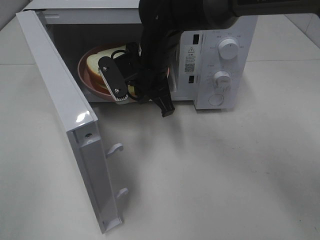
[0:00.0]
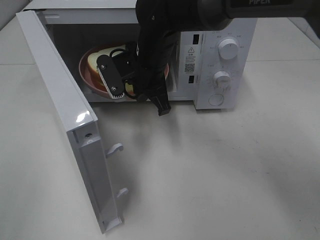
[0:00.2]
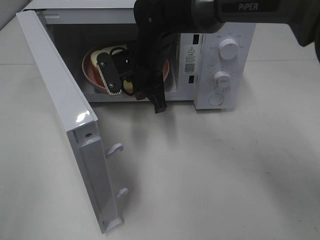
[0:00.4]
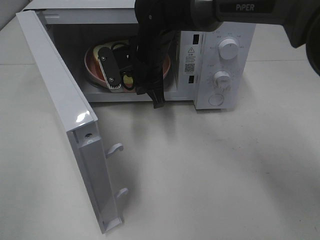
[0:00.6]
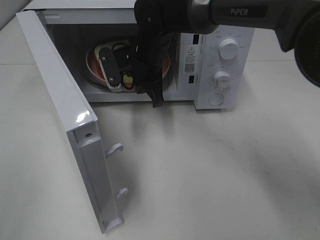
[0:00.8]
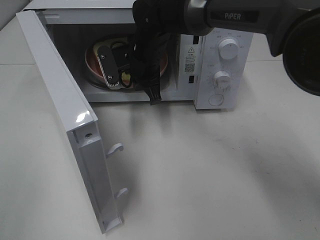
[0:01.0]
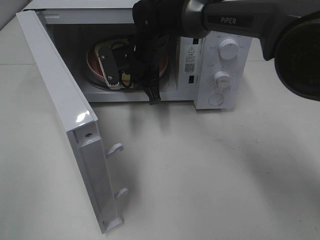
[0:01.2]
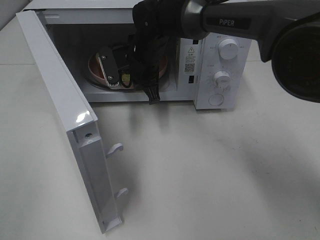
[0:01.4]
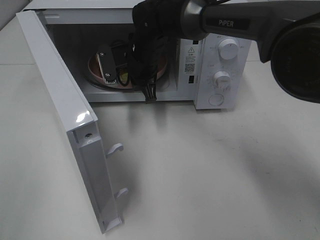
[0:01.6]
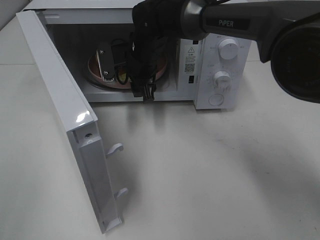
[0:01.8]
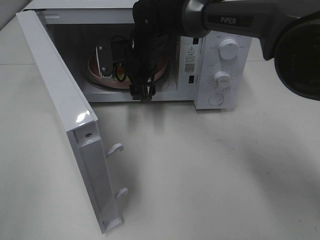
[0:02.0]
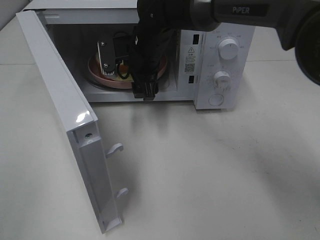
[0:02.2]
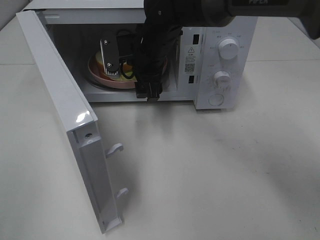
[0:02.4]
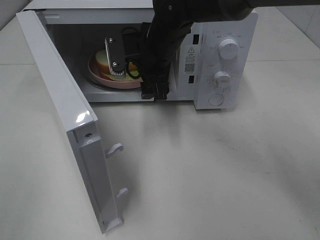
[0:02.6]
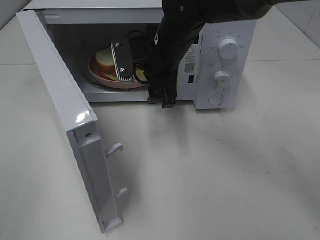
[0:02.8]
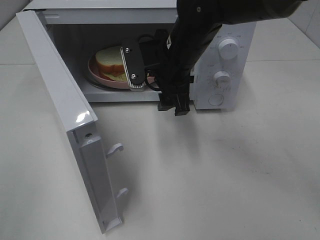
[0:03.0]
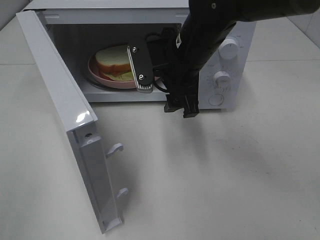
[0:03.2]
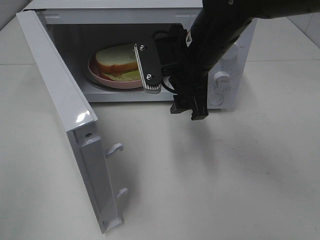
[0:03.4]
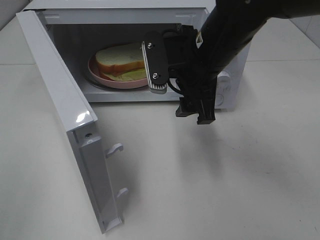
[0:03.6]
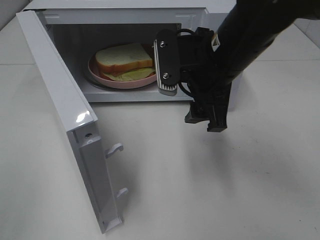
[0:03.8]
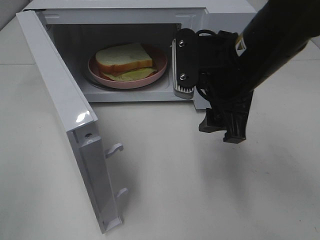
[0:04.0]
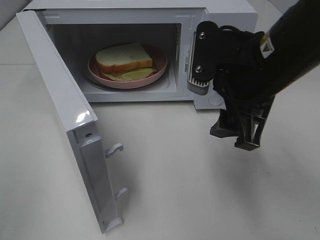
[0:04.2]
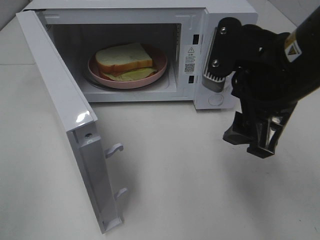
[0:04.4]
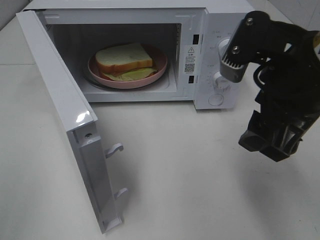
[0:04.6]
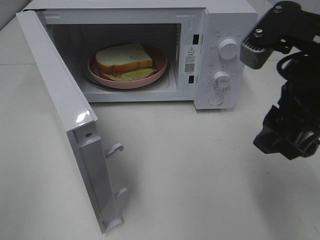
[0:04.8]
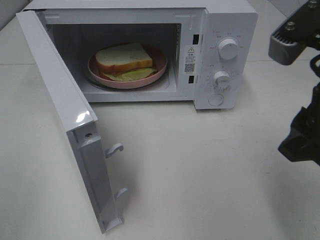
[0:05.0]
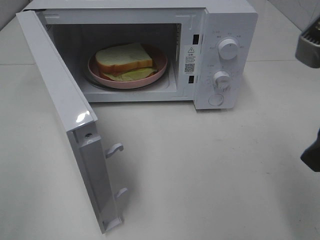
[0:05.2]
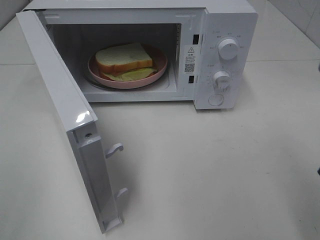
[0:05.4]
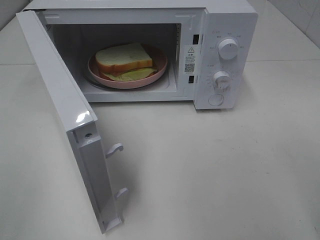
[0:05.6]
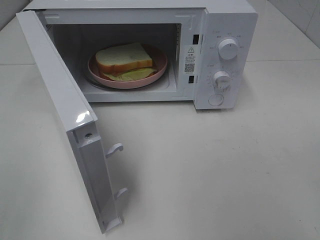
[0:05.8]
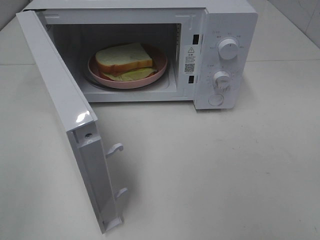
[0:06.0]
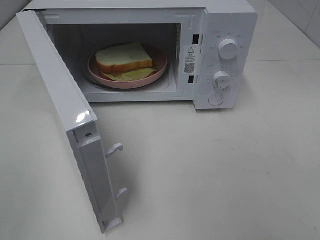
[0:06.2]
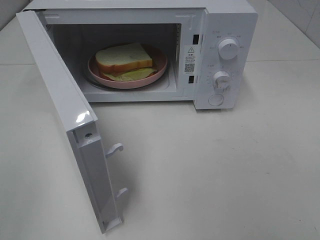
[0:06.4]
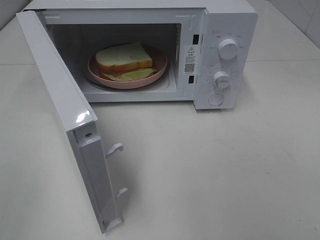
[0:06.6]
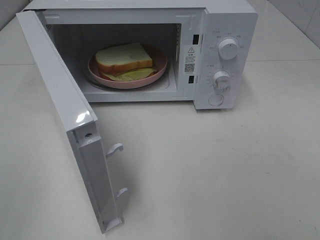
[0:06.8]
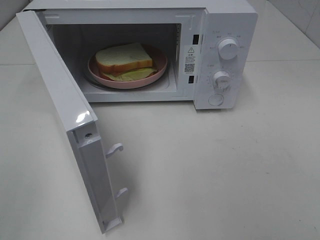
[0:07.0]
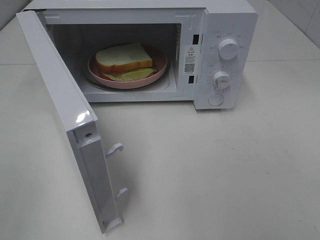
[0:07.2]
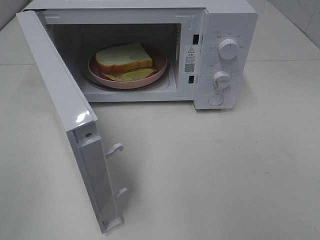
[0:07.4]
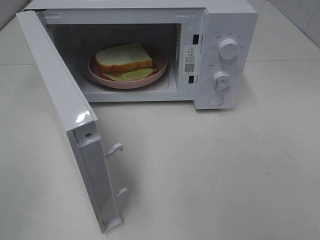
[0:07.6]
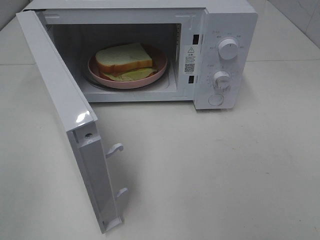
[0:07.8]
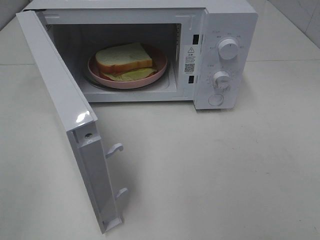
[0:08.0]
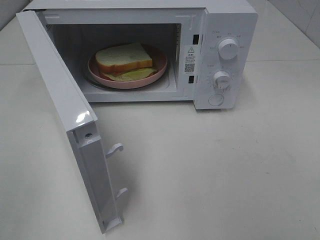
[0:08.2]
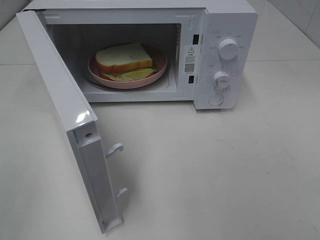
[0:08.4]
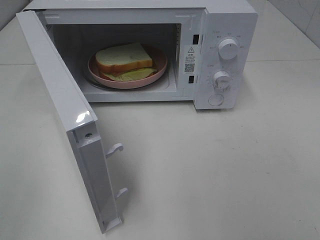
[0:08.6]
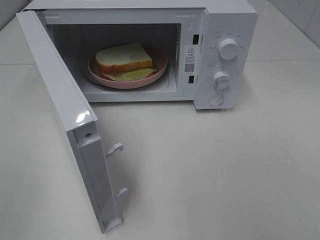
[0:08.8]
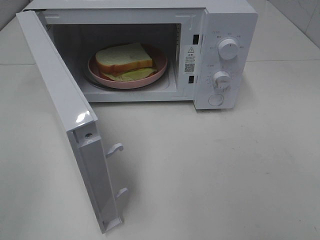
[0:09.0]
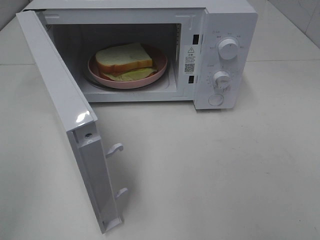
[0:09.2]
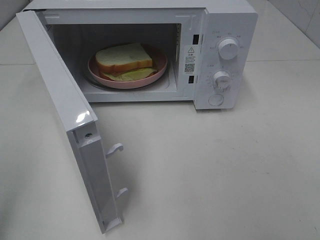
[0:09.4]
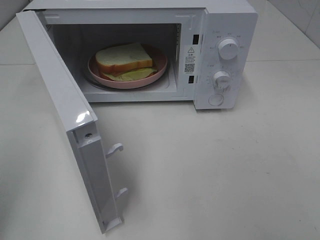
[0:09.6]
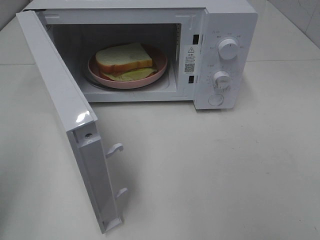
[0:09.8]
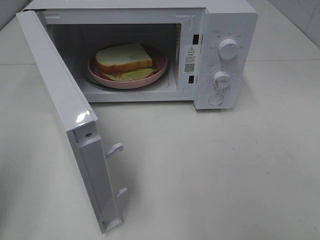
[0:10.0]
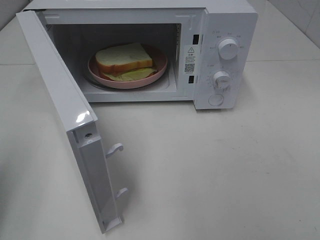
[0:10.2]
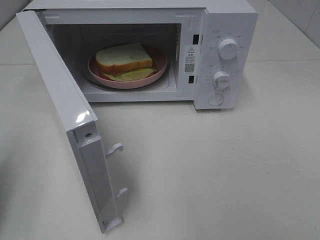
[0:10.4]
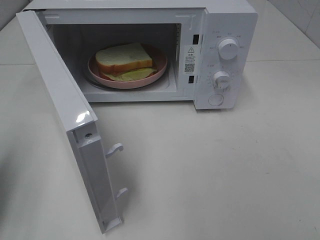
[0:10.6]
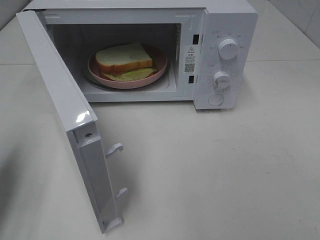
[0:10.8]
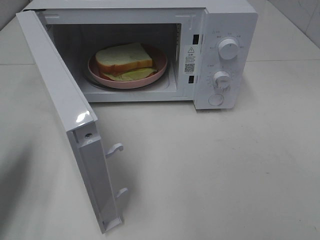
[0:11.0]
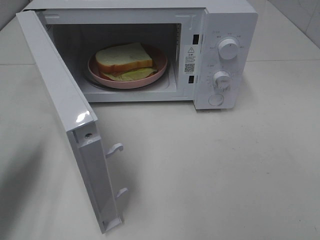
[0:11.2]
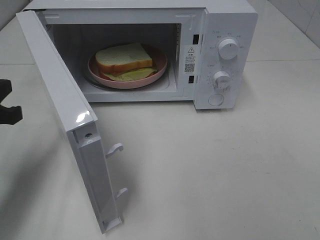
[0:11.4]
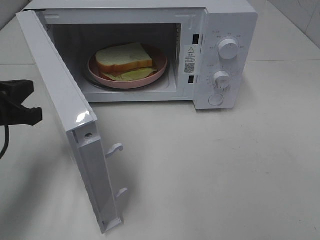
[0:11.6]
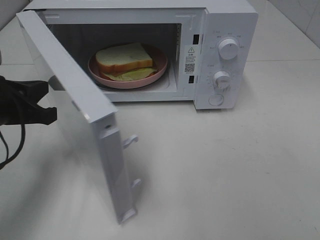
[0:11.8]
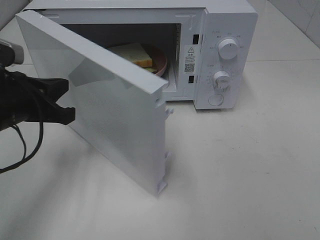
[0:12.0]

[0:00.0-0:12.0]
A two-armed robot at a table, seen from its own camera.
Task of the whole recording: Heat Sandwich.
Step, 0:00.0 to 0:02.4: Right hand: place the plate in the microwave.
0:00.0 to 0:01.6: The right gripper travels forward by some 5 cm.
0:01.6 to 0:03.0: The right gripper moves backward and to the right, some 10 cm, and opens its fingers.
0:03.0 to 0:04.4: The right gripper shifts approximately 20 cm backward, to the right and upward.
0:04.4 to 0:06.0: The right gripper shifts approximately 20 cm backward and to the right.
0:09.0 to 0:10.4: The left gripper is displaced forward and downward by some 15 cm, and closes.
0:10.4 to 0:12.0: The left gripper moves to the right, forward and downward, approximately 20 cm.

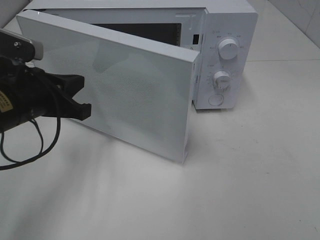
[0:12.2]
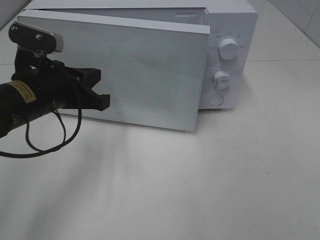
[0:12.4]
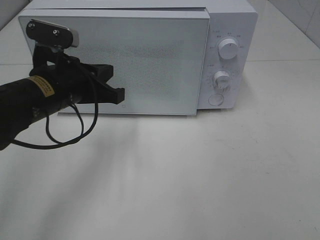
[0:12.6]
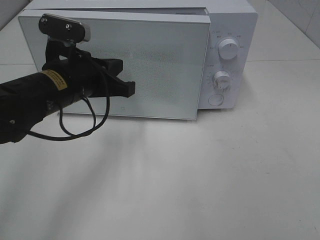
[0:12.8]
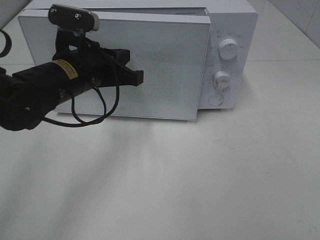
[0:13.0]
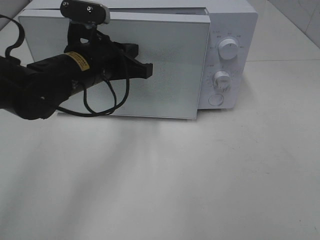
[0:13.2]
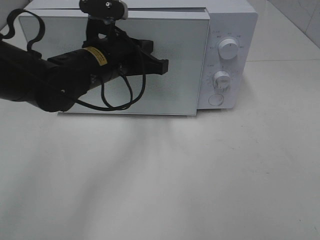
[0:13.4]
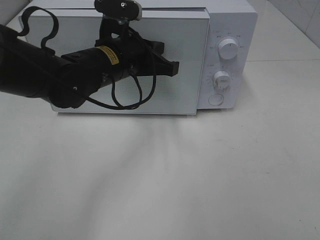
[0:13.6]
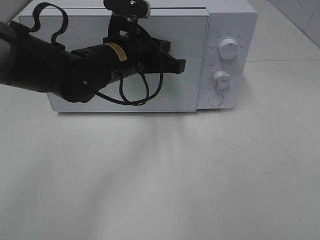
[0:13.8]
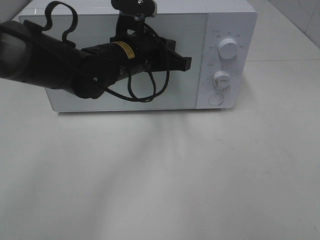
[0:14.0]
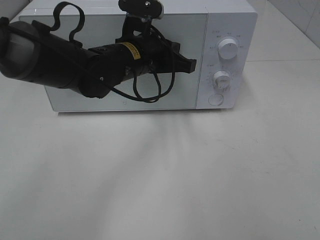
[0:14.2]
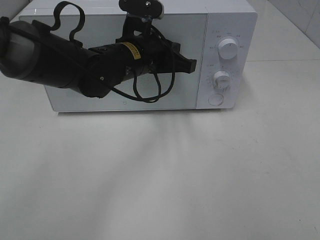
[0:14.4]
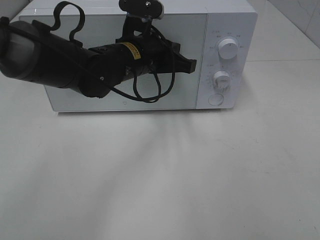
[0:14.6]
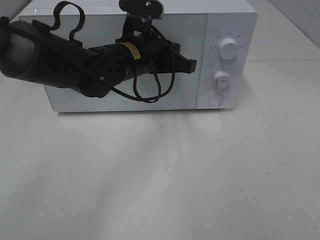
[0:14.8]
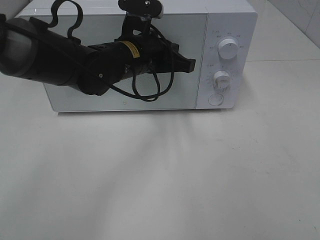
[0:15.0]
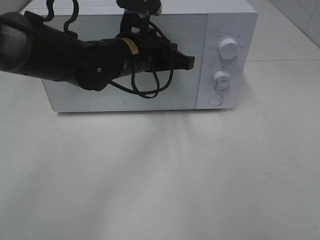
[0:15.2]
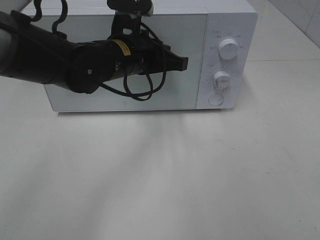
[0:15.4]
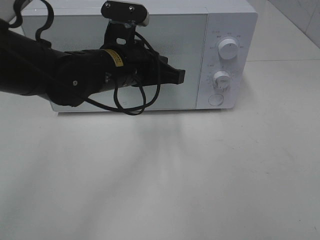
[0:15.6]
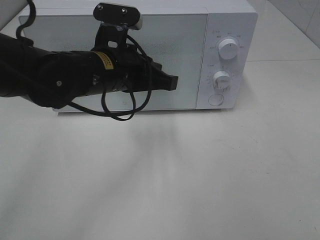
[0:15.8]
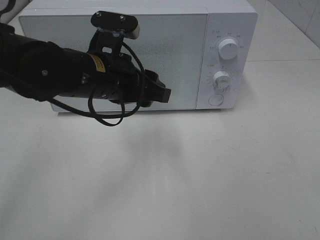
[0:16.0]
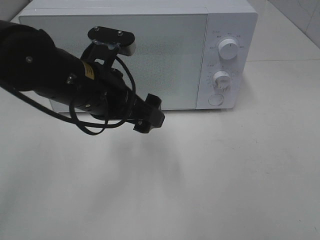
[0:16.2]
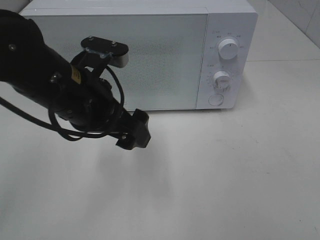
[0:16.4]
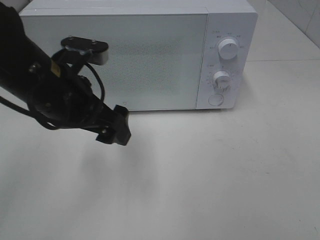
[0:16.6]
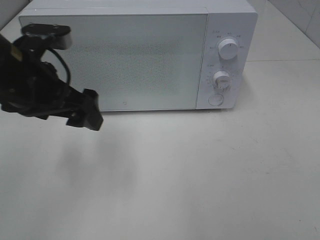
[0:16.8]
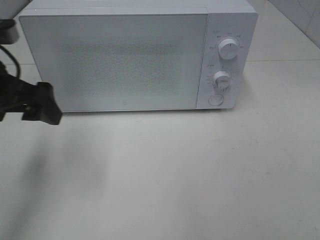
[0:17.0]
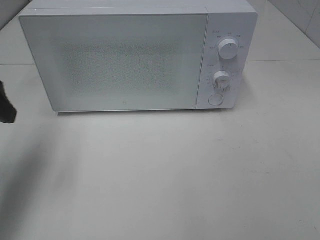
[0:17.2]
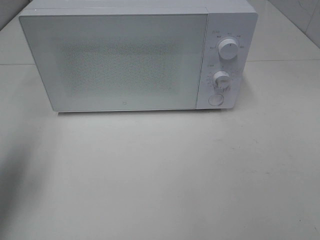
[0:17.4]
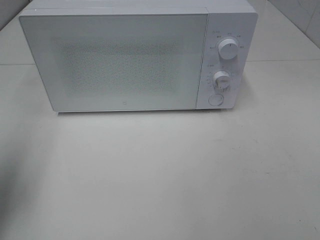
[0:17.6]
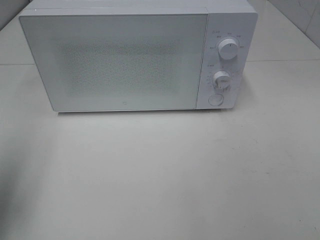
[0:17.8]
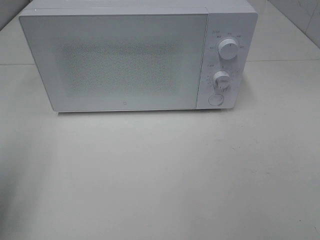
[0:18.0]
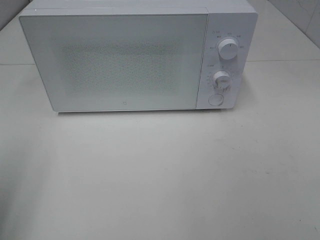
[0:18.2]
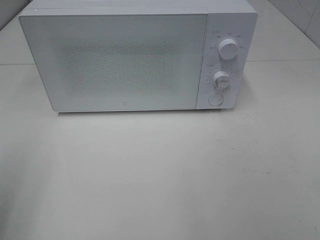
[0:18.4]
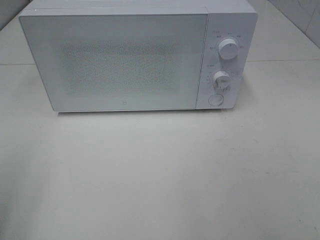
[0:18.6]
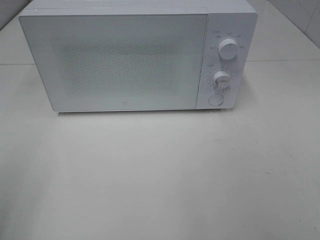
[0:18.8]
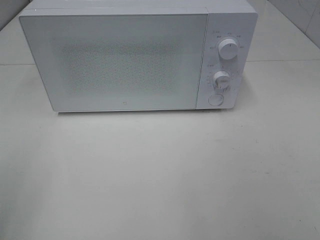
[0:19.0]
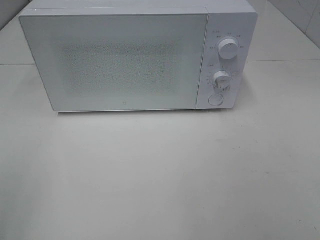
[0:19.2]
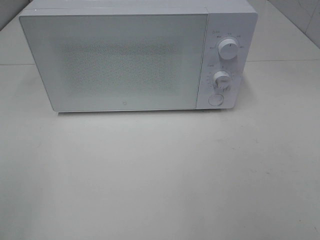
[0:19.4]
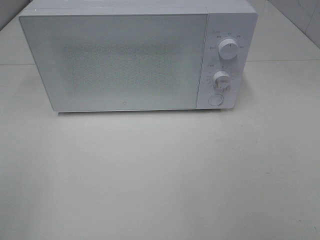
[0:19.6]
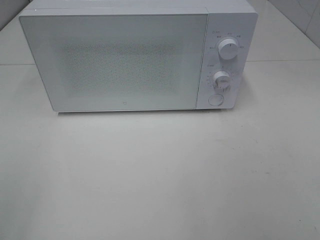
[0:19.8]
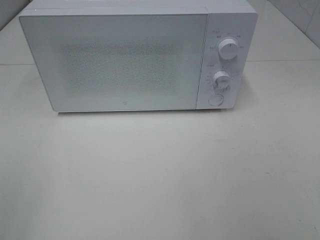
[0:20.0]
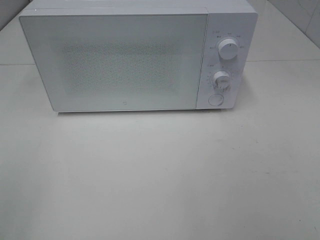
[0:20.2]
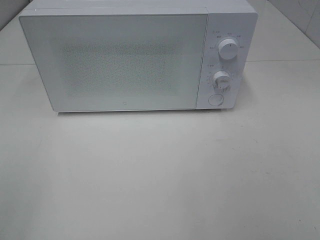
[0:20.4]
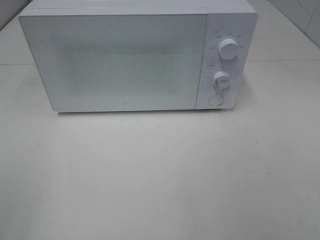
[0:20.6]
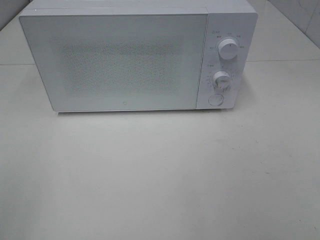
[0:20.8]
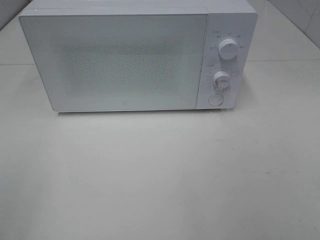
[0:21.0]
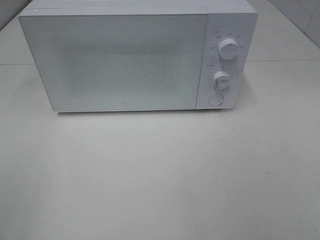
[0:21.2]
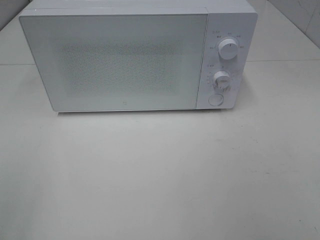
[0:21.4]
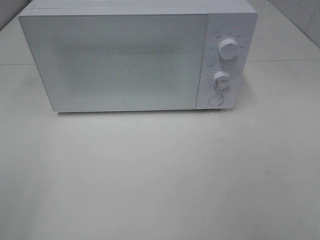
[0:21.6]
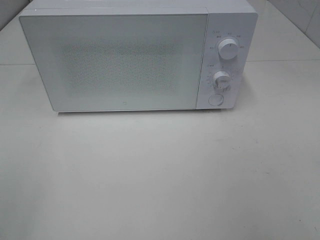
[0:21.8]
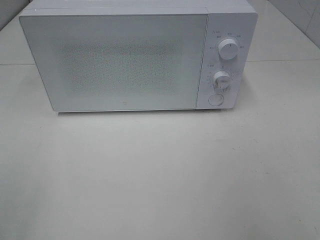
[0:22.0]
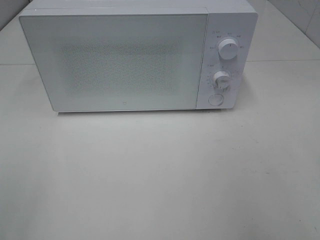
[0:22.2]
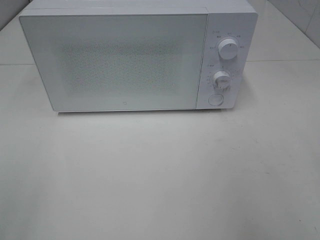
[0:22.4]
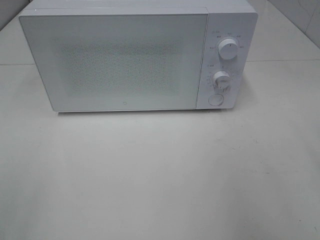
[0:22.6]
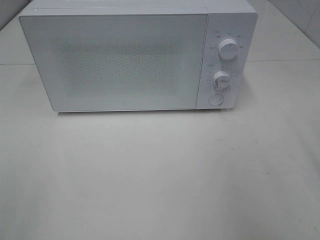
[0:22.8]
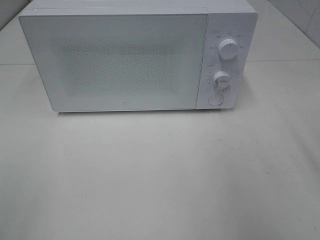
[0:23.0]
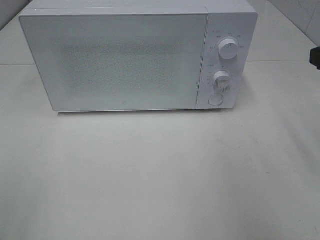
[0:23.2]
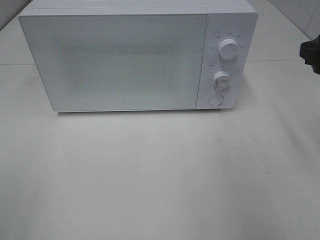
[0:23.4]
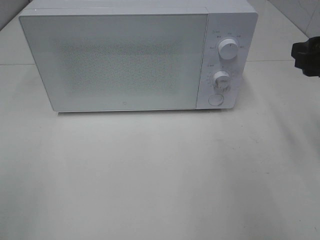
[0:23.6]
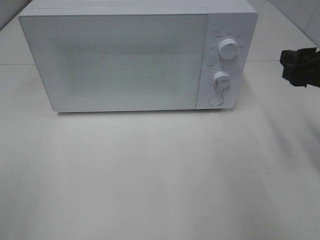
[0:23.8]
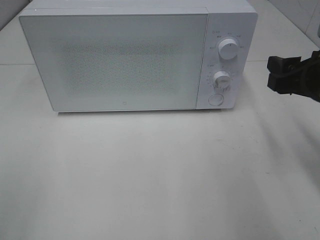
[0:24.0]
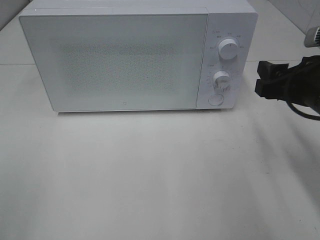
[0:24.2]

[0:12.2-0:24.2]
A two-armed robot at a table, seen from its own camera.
Task of the whole recording: Heat Sandwich.
Step, 0:12.2 to 0:15.6: Left hand: close the microwave door.
0:12.2 to 0:13.8: The left gripper travels to the right and forward by some 15 cm.
0:13.8 to 0:15.2: The grippers move only a little.
0:15.2 to 0:16.6: The left gripper travels backward and to the left by some 15 cm, and opens its fingers.
0:16.6 to 0:18.2: The left gripper travels to the left and backward by approximately 25 cm.
0:19.8 to 0:21.2: Both grippers stay put.
0:22.6 to 0:24.2: The right gripper moves downward and forward, roughly 15 cm.
